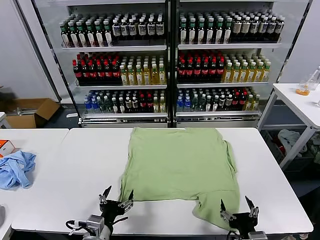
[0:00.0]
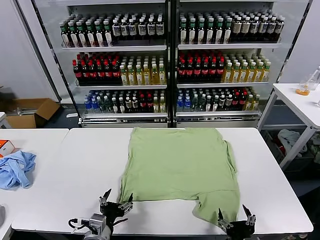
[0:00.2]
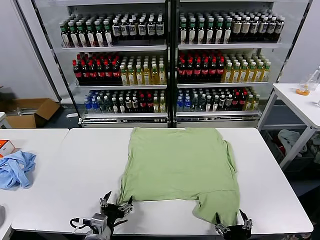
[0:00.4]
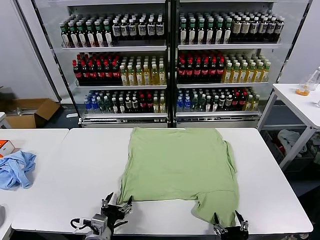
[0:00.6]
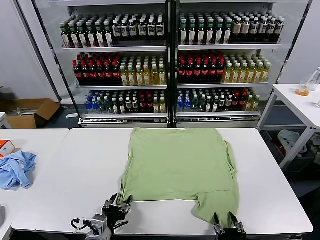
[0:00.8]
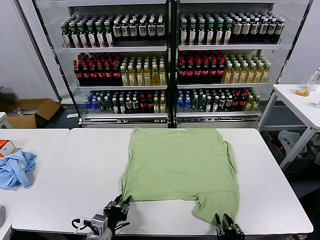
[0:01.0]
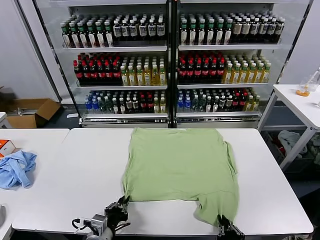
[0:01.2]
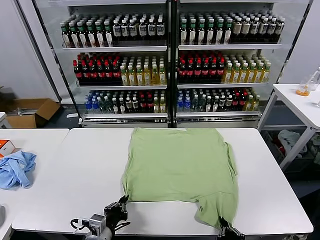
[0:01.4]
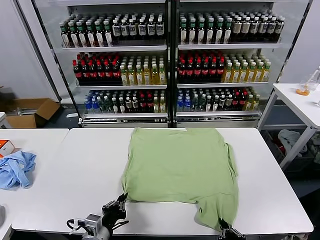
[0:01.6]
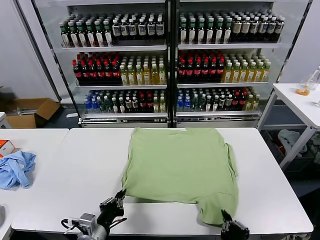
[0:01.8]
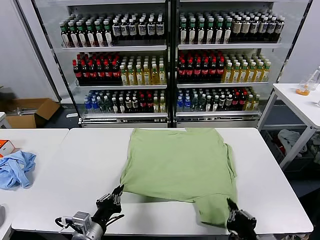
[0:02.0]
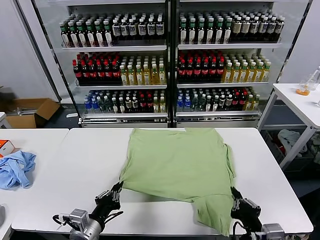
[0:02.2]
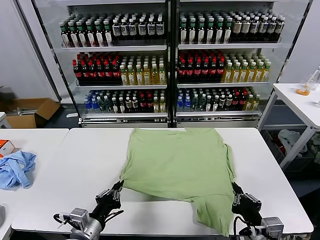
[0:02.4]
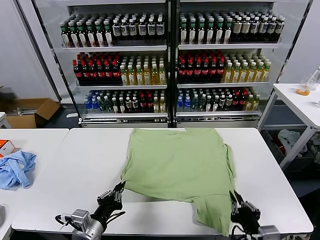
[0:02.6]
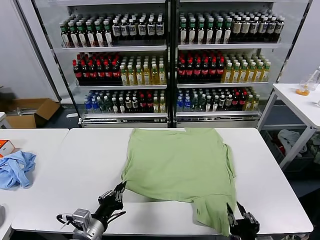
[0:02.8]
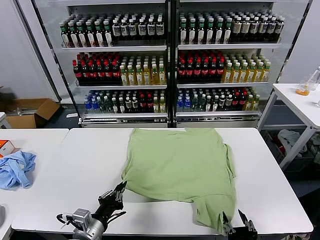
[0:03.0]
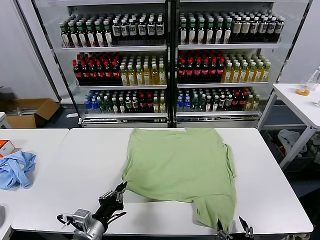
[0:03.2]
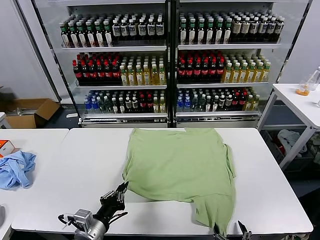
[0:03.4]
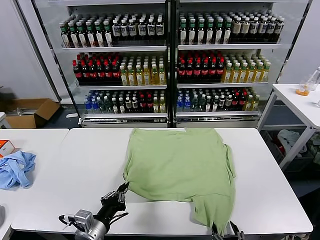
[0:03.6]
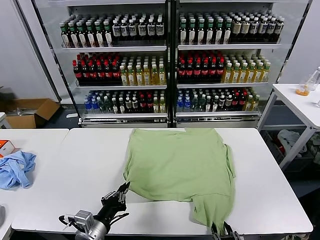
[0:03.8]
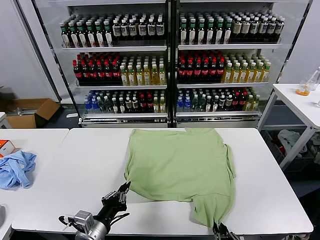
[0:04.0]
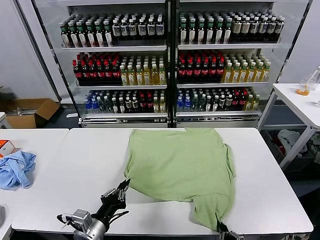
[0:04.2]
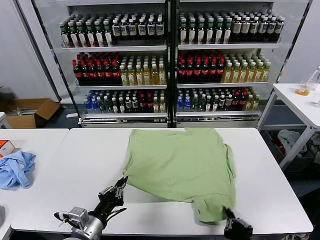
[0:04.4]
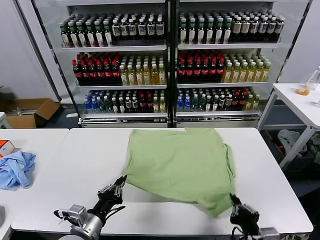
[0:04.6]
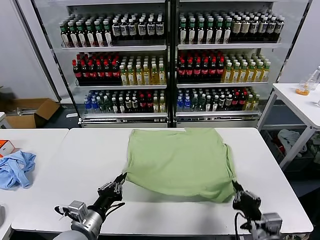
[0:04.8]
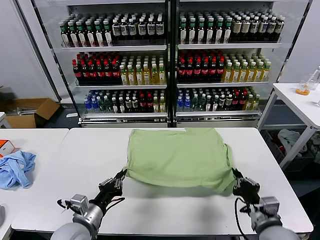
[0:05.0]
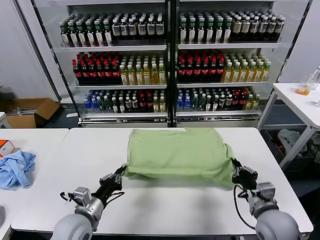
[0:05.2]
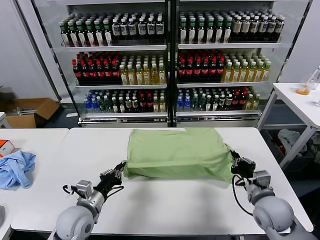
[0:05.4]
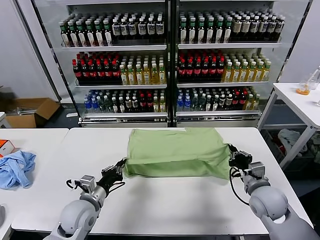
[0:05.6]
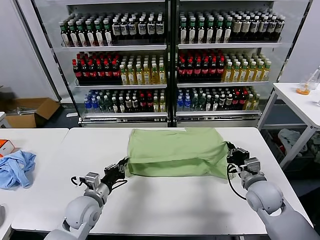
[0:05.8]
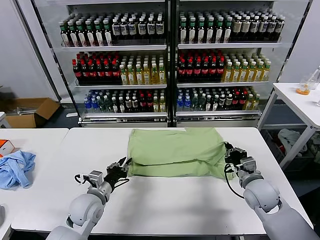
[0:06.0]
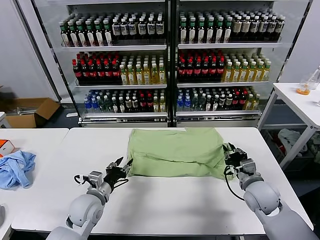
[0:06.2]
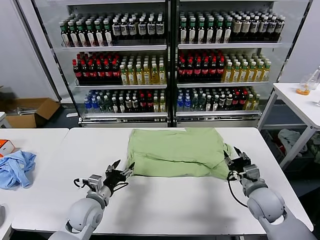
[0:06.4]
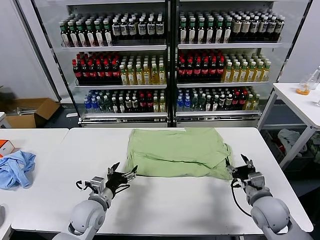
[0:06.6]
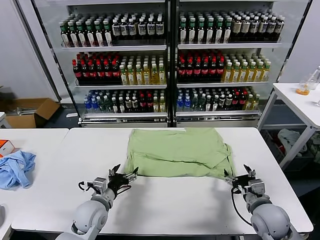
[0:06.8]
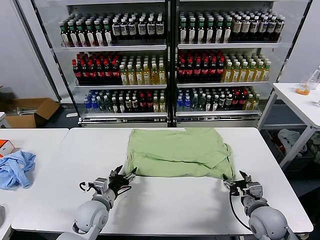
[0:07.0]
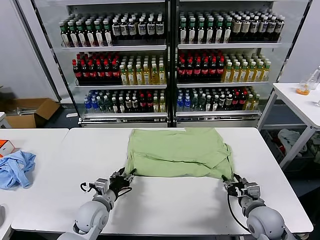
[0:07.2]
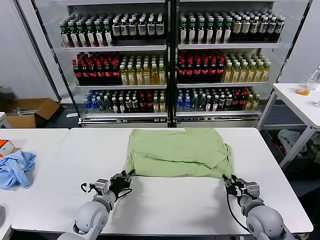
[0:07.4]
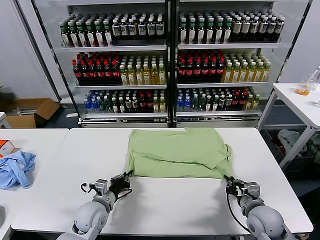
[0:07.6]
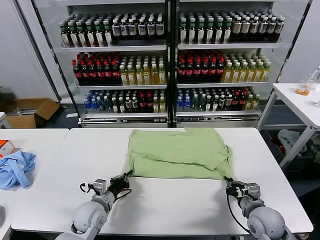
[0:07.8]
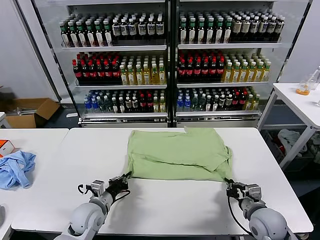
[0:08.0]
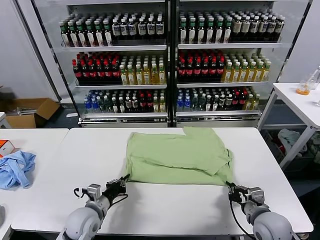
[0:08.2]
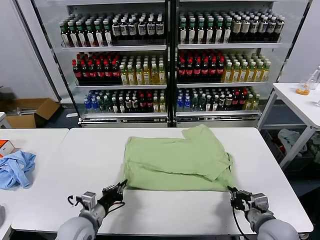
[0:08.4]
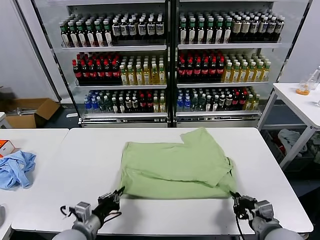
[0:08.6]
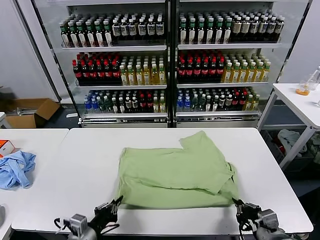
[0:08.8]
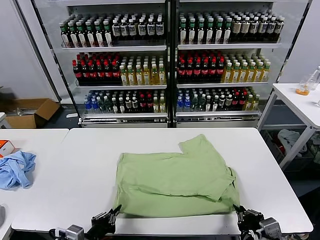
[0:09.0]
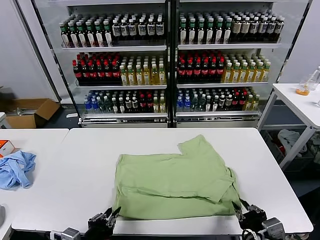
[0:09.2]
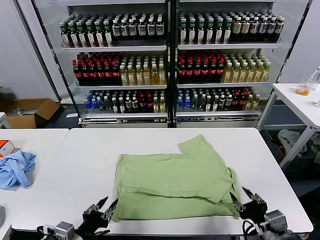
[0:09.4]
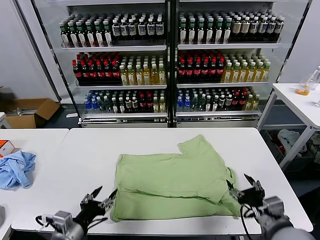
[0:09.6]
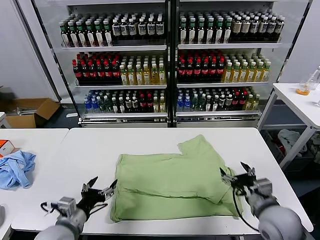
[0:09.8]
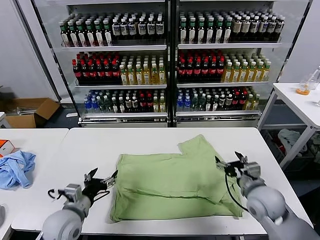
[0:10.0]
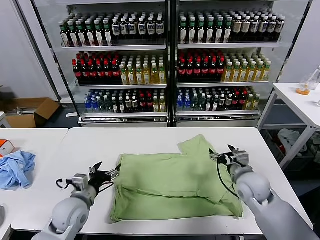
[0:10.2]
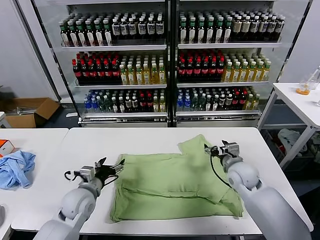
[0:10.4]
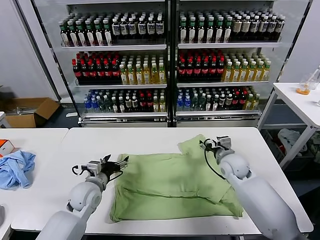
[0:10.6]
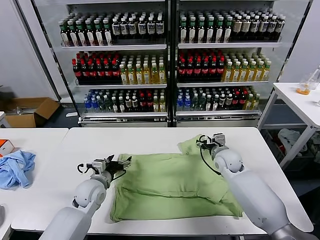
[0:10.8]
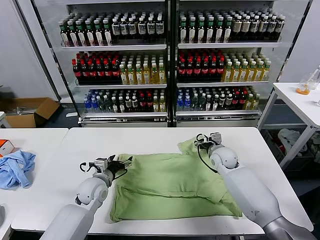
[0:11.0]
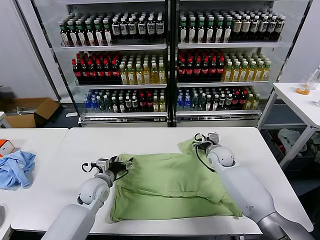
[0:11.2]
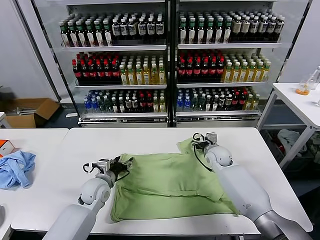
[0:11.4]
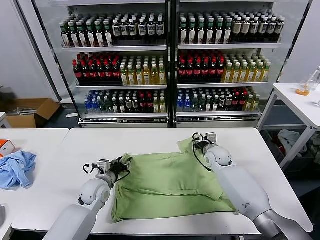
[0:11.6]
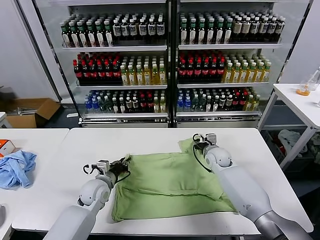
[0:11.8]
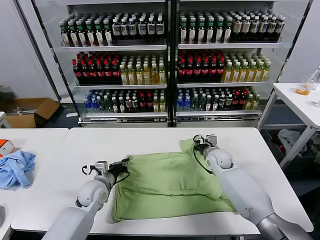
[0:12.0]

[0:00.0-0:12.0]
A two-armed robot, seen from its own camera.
Task of the whole recording: fold and organize the clothes.
Step, 0:00.0 to 0:01.6: use both grippers simultaneously to clamp the lower edge of the clothing fabric.
Step, 0:01.8 to 0:06.2: use both grippers to drag the lower edge of the fabric forward and fold it over the upper edge.
Step, 0:06.4 to 0:09.2: Drag the clothes downward with both gripper.
Step, 0:09.4 to 0:11.8: use both grippers simultaneously to clamp the upper edge of the clothing fabric.
0:01.6 to 0:03.0: The right gripper opens.
0:03.0 to 0:04.4: The right gripper closes up.
0:04.4 to 0:06.0: The right gripper shifts about 25 cm forward. Meanwhile the left gripper moves forward, about 15 cm.
0:06.0 to 0:07.6: The right gripper is displaced backward by about 5 cm, and opens and closes again, while the left gripper opens, then closes again.
0:07.6 to 0:09.0: The left gripper shifts roughly 15 cm backward; the right gripper moves backward and upward, about 15 cm.
0:09.0 to 0:10.4: The left gripper is displaced forward by about 20 cm, and opens its fingers, while the right gripper is displaced forward by some 30 cm, and opens.
0:10.4 to 0:12.0: The right gripper goes roughly 10 cm forward and downward, and closes its fingers. Meanwhile the left gripper heads forward, covering about 5 cm, and closes.

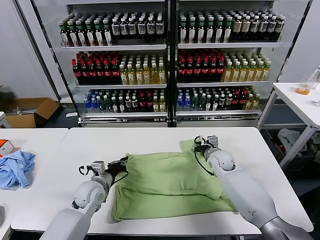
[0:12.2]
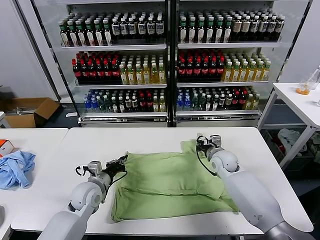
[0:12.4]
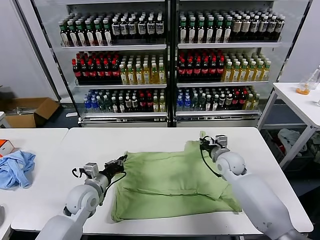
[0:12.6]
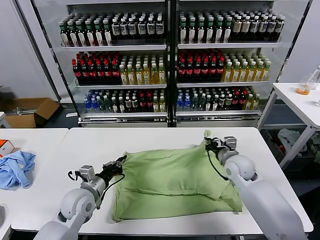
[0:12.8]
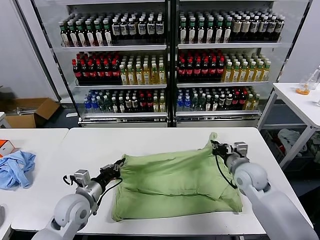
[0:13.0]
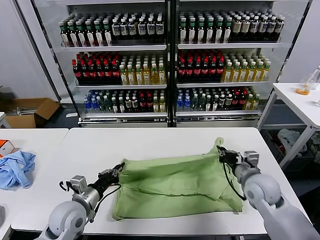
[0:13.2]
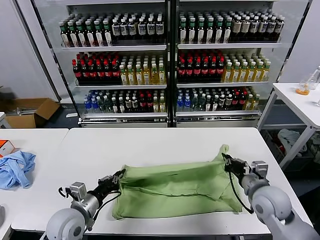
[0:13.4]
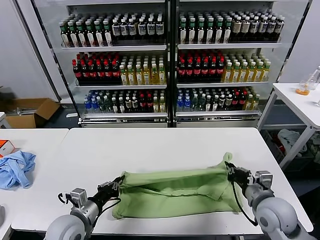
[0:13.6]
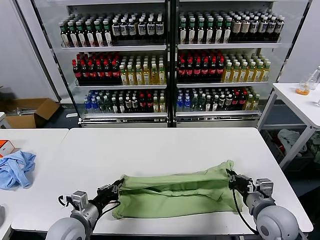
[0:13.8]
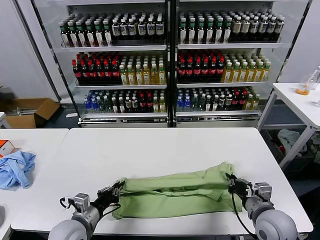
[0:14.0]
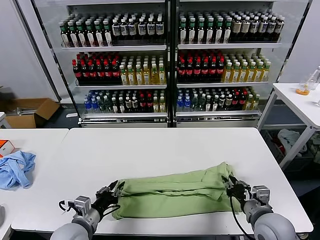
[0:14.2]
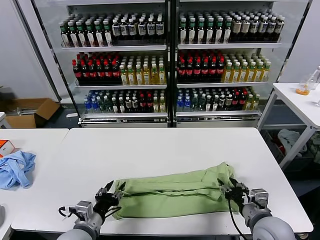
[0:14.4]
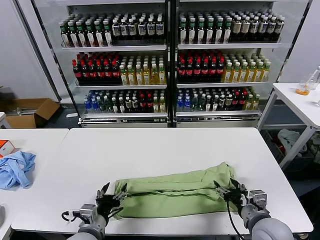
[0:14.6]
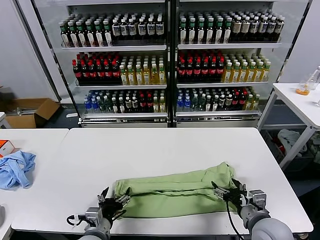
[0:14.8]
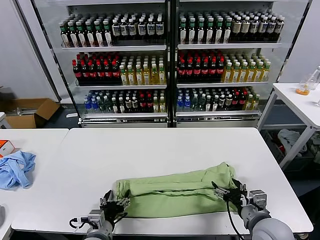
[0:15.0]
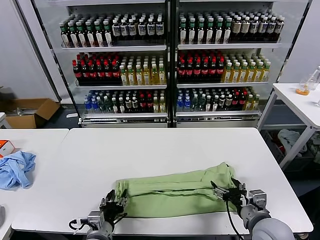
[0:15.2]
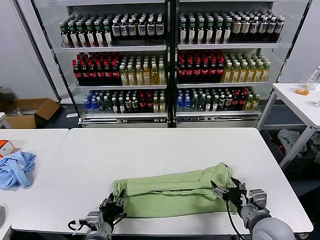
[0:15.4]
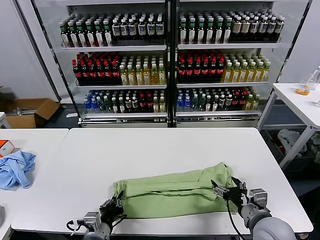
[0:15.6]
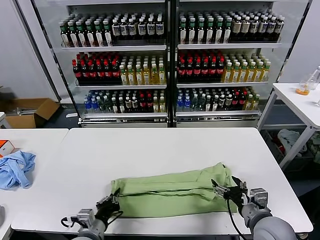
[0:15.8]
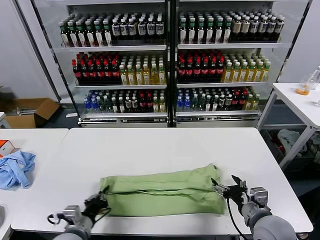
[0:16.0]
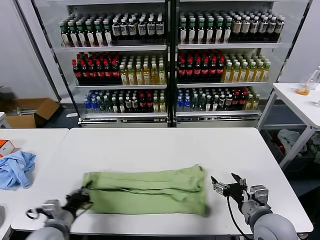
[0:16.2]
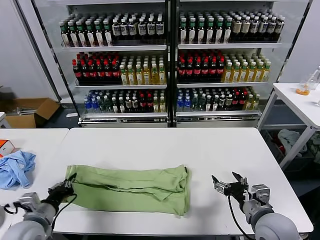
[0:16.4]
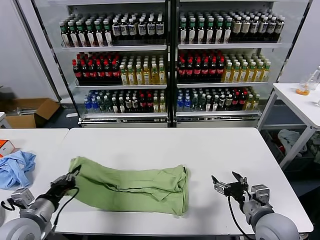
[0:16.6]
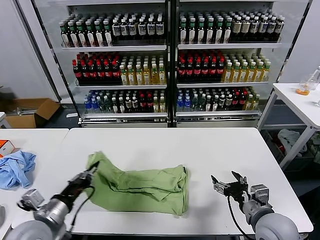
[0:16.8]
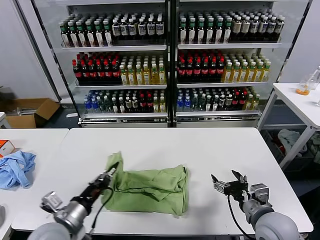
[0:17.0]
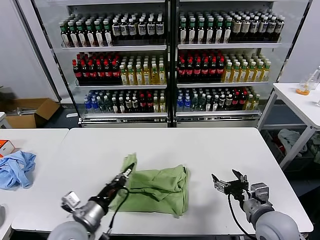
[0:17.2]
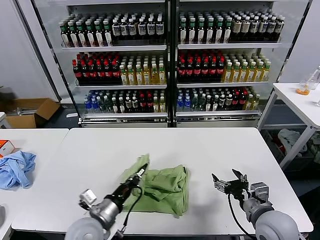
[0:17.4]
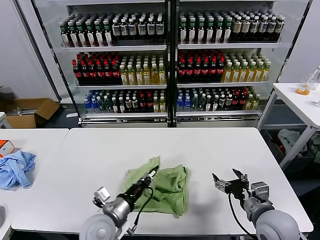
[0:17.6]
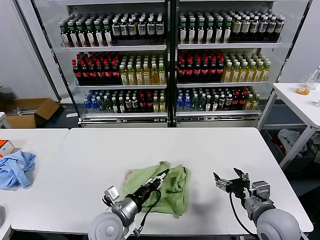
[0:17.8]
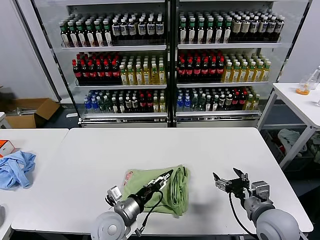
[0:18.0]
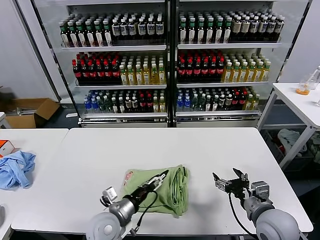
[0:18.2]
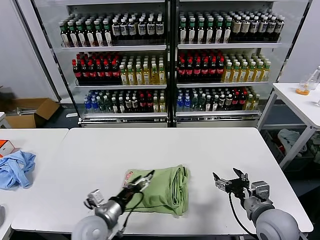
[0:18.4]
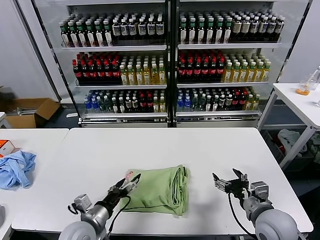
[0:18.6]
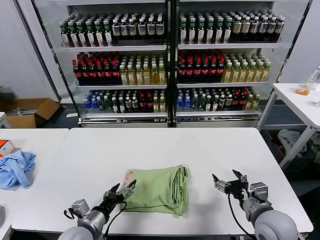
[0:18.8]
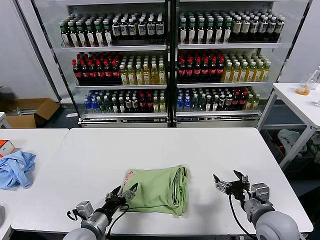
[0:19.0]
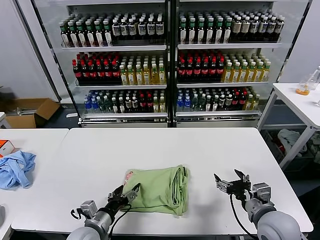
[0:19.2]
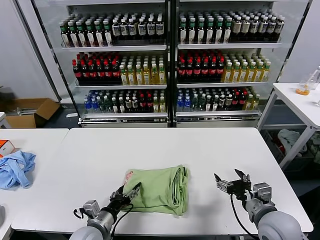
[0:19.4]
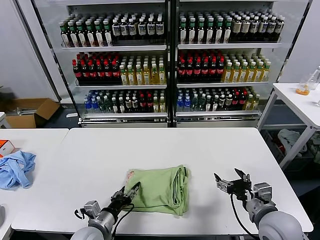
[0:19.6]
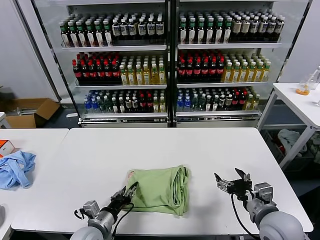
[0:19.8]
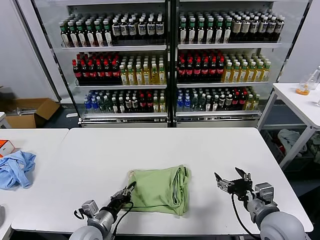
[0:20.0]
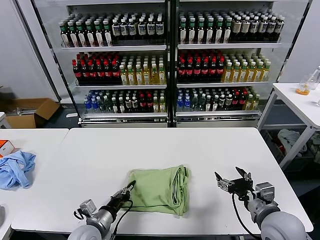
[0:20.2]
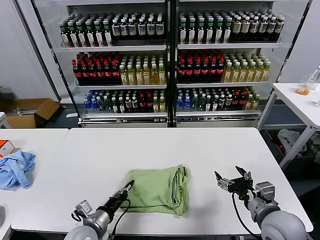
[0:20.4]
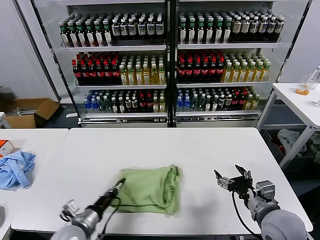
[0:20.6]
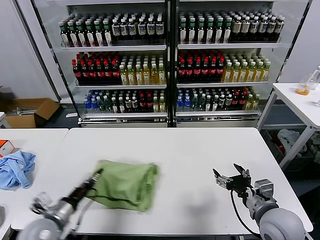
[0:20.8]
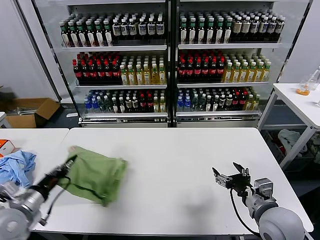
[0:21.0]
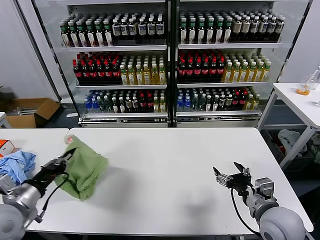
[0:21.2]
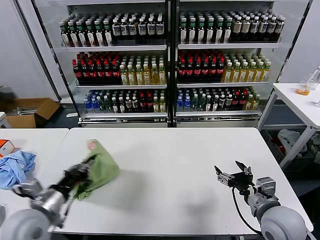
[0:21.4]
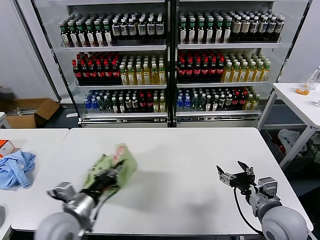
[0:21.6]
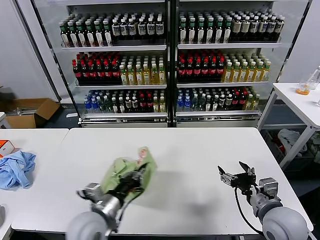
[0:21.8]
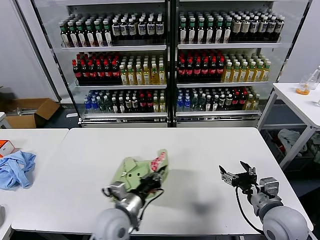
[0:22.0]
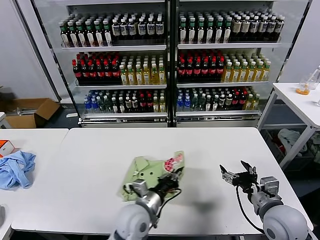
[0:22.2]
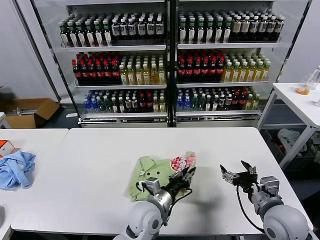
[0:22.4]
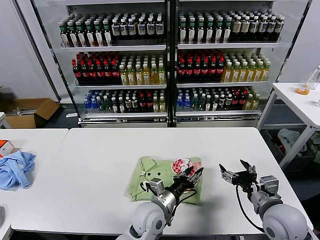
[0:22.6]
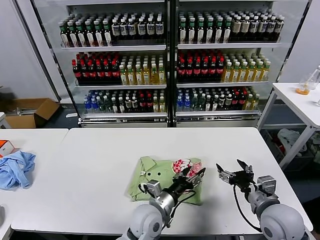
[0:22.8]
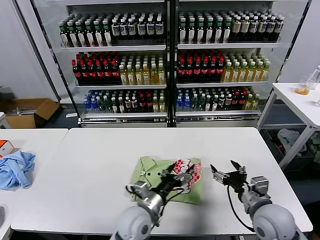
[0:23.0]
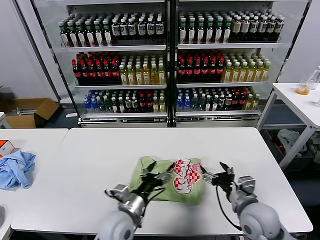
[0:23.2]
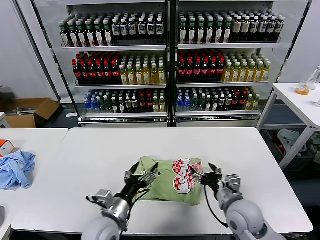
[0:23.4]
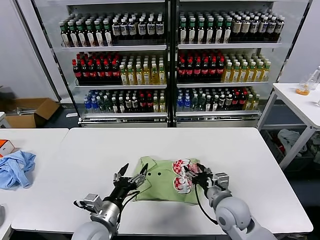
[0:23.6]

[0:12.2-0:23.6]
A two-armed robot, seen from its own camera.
Task of the whole recording: fold and organize the clothes.
Step, 0:12.2 to 0:14.4: use both grippers to drag the upper edge of the fabric backward and fold it over the lower edge.
Step, 0:14.6 to 0:15.4: use the left gripper to clamp the left edge of the fabric.
Step, 0:15.8 to 0:18.0: use the left gripper to drag the left edge of the fabric to the left and folds it over the right edge.
Step, 0:18.2 to 0:22.6: Flip the folded clothes over with left gripper.
0:12.2 to 0:13.6: The left gripper moves backward, roughly 15 cm. Meanwhile the right gripper goes about 25 cm backward.
0:13.6 to 0:15.0: The right gripper moves some 5 cm, and opens its fingers, while the left gripper heads to the right, covering about 5 cm, and opens.
0:15.0 to 0:16.4: The left gripper travels to the left by some 15 cm, and closes up.
0:16.4 to 0:17.8: The left gripper moves to the right, approximately 20 cm.
0:17.8 to 0:19.4: The left gripper travels to the left by approximately 5 cm, and opens up.
0:19.4 to 0:20.8: The left gripper moves to the left, about 10 cm, and closes up.
0:20.8 to 0:22.2: The left gripper shifts about 20 cm to the right.
0:22.2 to 0:23.6: The right gripper heads to the left, downward and forward, covering approximately 10 cm, while the left gripper is displaced to the left by roughly 10 cm, and opens its fingers.
